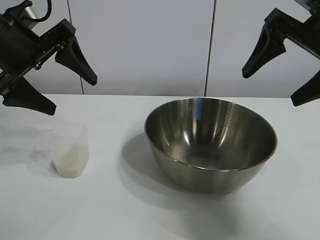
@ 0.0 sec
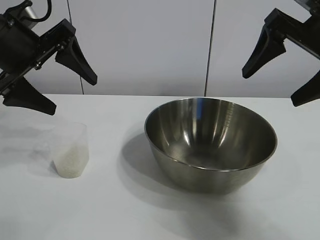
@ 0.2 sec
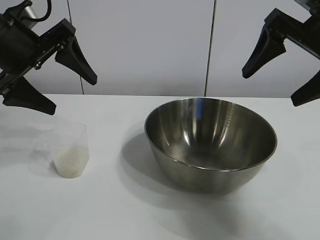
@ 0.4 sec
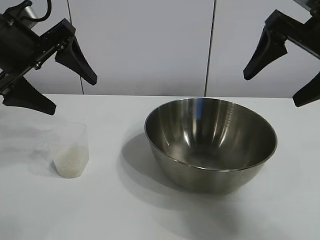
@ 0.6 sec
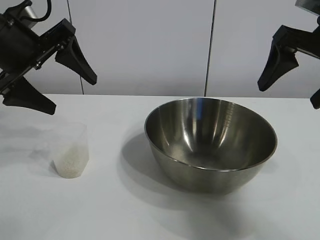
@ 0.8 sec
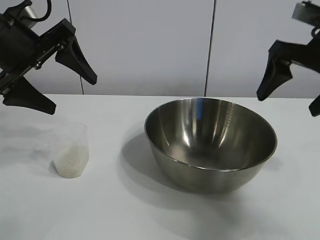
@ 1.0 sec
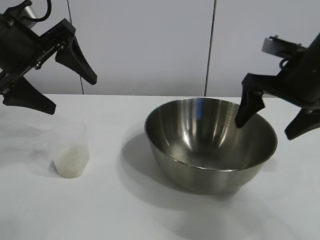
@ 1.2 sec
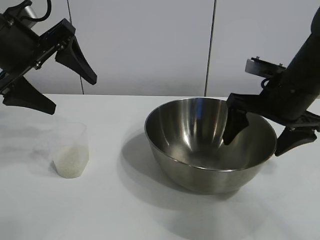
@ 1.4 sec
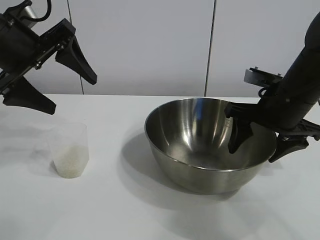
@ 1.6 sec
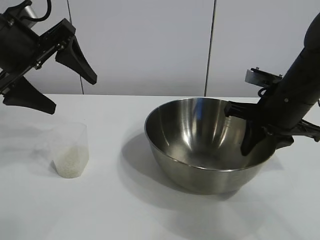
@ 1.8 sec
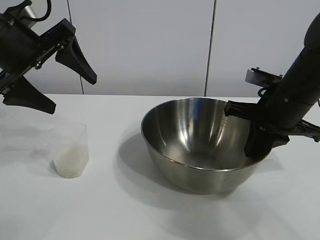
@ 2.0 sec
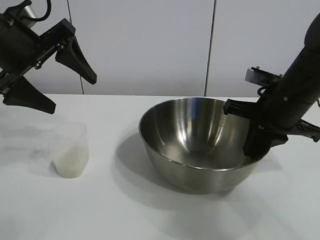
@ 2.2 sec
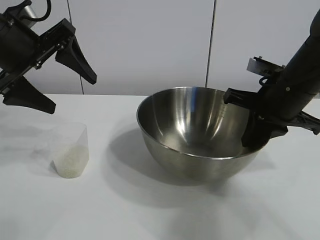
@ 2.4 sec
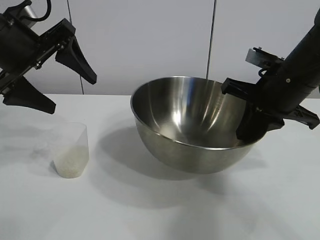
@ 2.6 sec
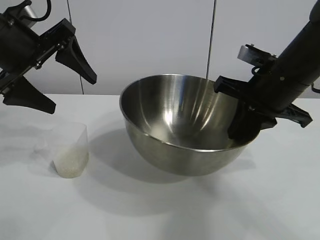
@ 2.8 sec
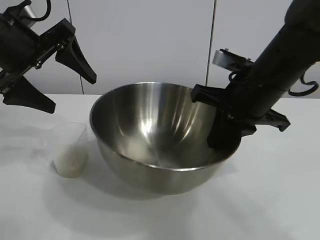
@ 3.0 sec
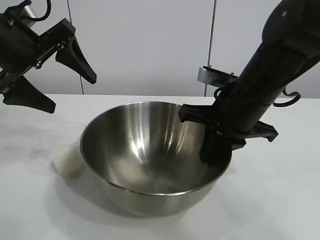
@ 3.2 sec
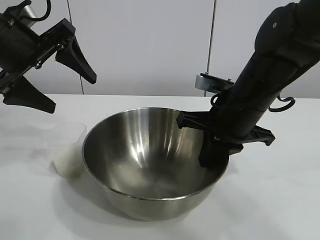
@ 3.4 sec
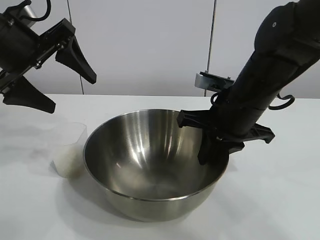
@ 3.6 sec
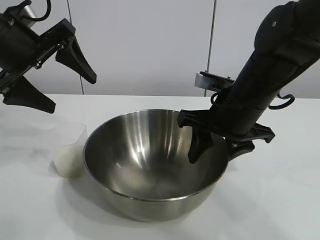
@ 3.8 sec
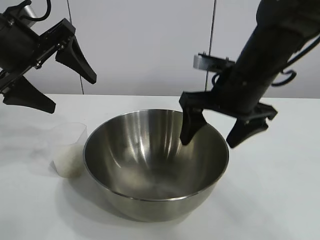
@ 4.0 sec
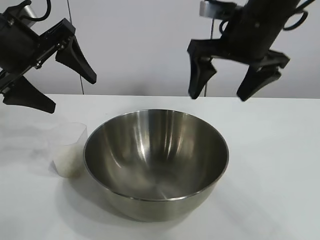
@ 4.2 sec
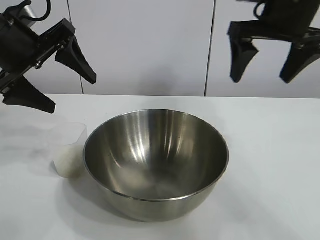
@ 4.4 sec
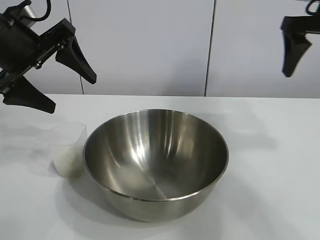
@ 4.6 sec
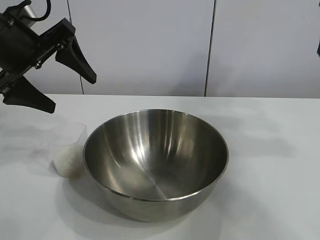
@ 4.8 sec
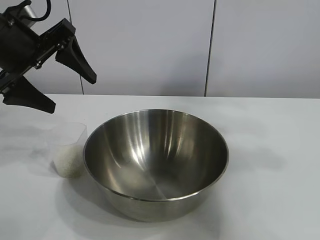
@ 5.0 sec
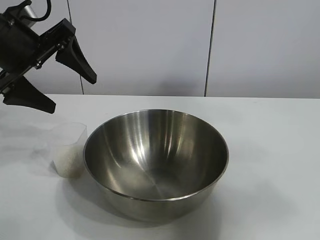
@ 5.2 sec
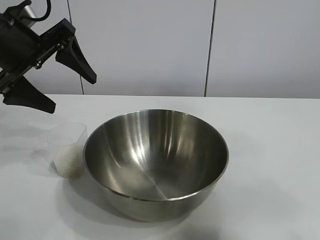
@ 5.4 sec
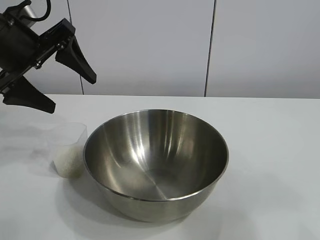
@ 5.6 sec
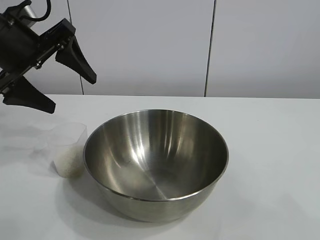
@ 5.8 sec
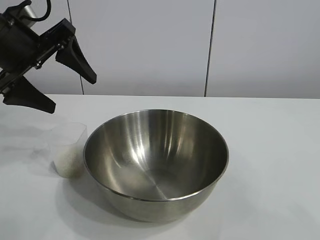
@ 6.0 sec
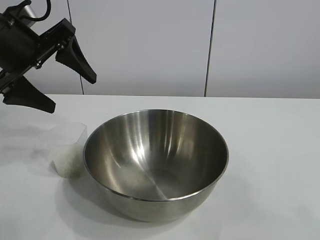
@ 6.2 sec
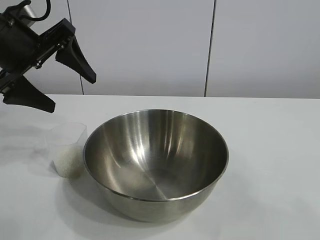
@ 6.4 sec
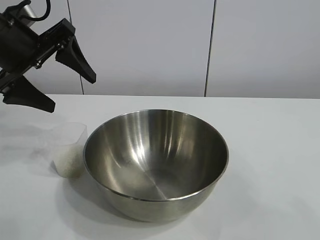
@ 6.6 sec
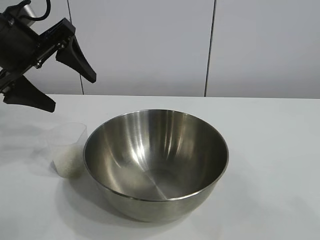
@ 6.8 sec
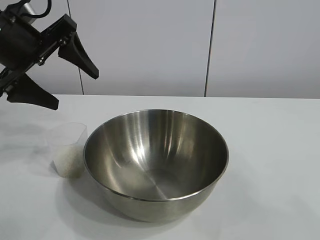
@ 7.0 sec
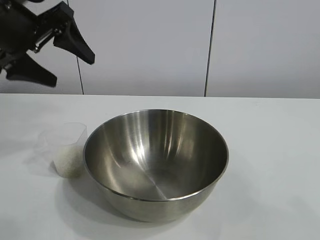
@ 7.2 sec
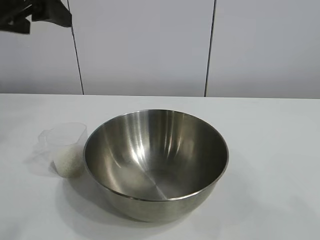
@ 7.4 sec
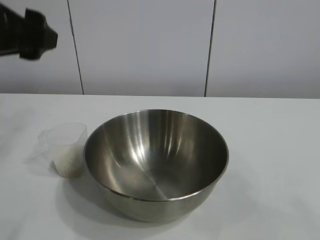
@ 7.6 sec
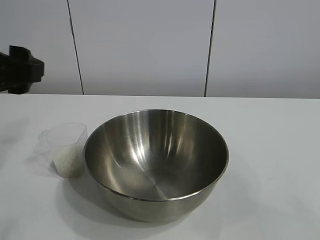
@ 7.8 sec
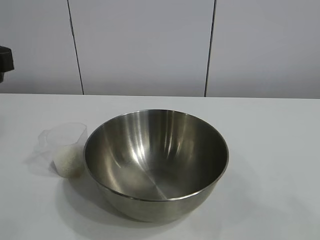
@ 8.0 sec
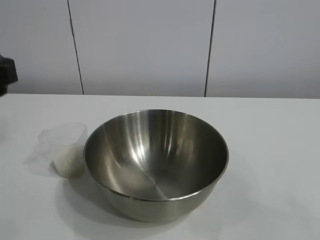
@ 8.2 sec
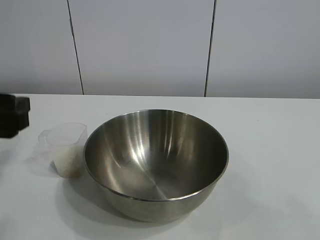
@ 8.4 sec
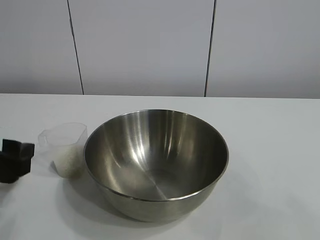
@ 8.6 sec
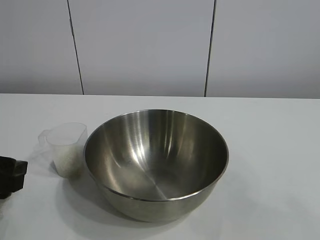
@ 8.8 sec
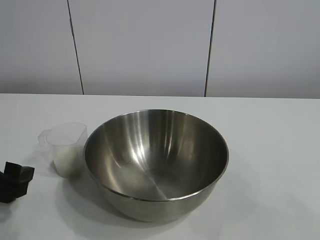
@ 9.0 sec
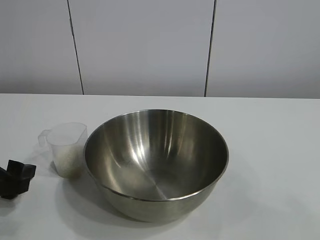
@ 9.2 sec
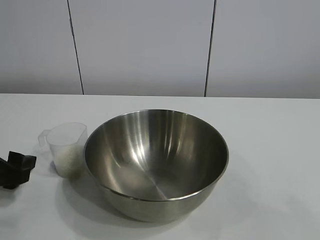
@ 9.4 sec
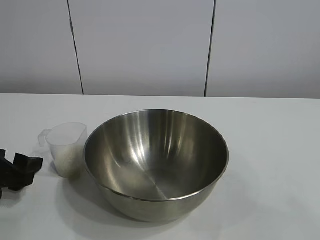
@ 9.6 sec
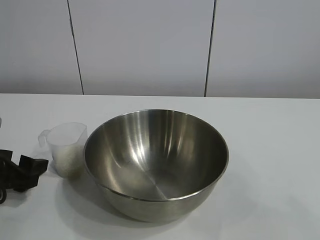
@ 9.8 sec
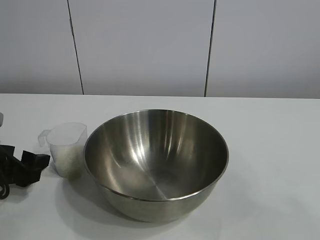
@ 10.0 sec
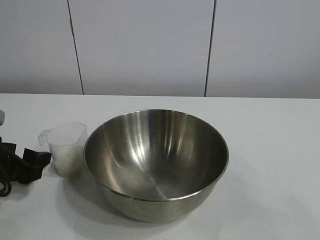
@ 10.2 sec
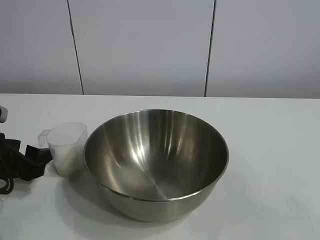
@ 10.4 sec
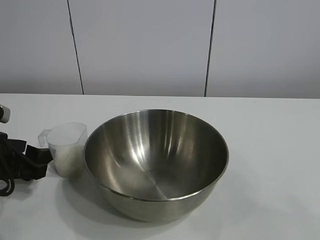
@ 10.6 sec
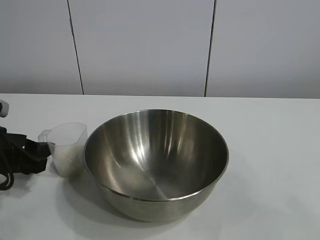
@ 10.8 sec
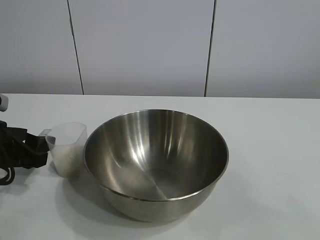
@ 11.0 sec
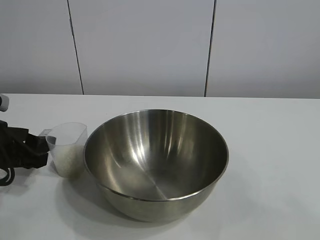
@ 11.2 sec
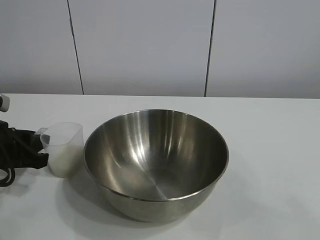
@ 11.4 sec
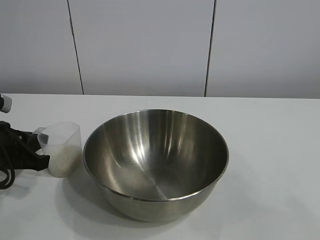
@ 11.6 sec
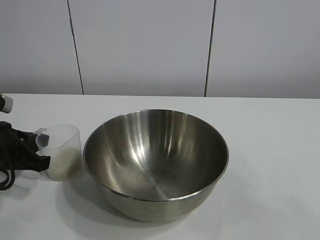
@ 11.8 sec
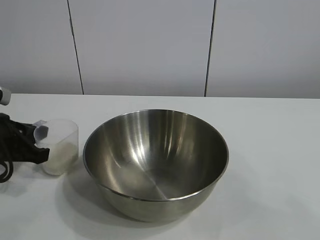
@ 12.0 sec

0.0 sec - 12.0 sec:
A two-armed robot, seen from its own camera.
Task of the whole recording: the right gripper grasp the rice container and place it in the center of the table, the left gripper grasp the rice scoop and pour the rice into the rice container.
Step, 0.6 sec - 3.6 sec: Move the bowl in the center of view with right gripper.
Step, 4.0 sec - 11.6 sec: Grasp the cup with rice in it with left gripper.

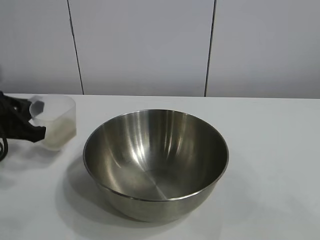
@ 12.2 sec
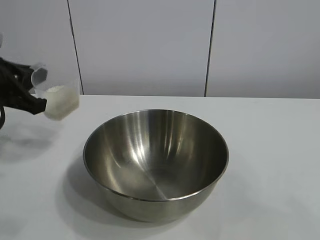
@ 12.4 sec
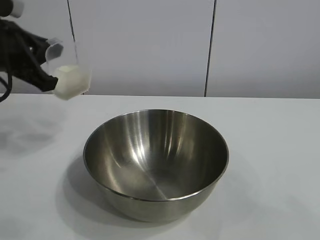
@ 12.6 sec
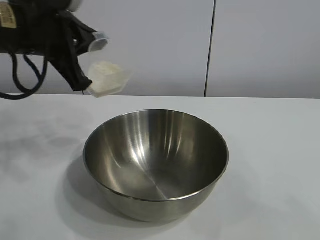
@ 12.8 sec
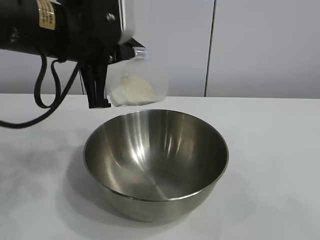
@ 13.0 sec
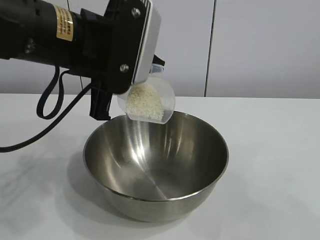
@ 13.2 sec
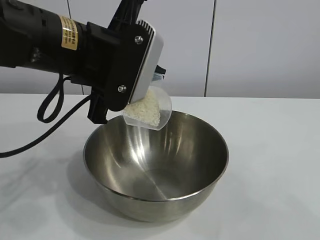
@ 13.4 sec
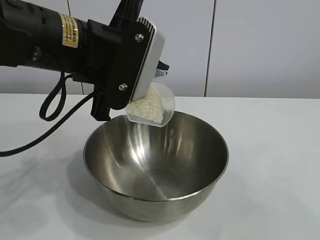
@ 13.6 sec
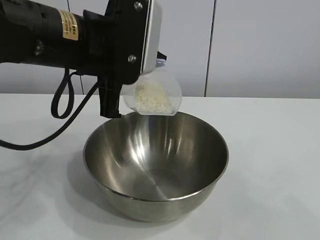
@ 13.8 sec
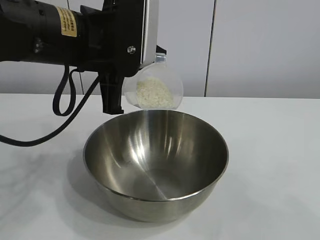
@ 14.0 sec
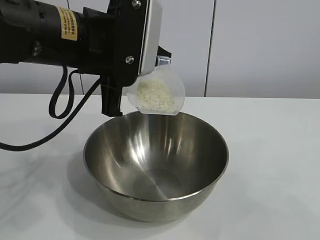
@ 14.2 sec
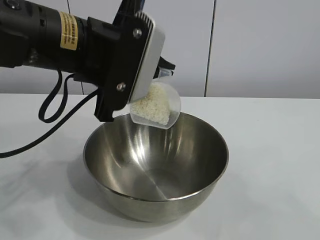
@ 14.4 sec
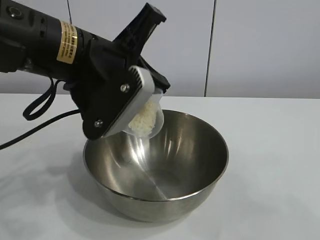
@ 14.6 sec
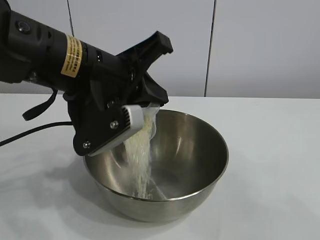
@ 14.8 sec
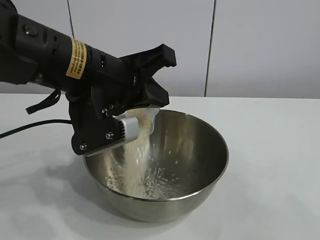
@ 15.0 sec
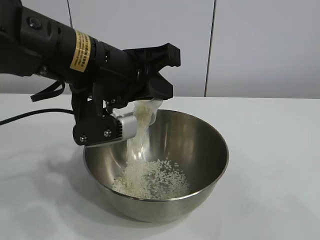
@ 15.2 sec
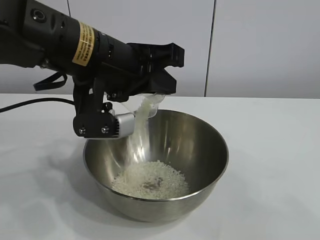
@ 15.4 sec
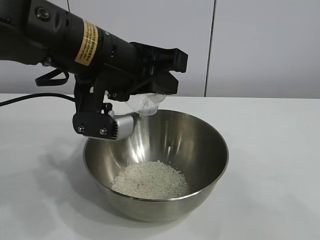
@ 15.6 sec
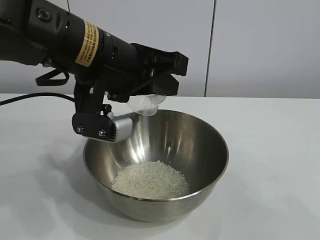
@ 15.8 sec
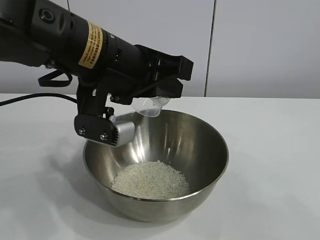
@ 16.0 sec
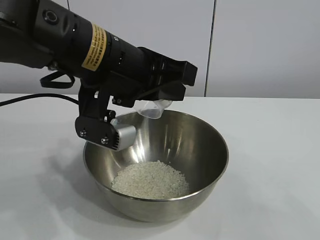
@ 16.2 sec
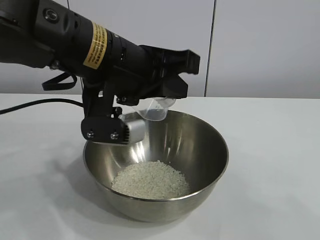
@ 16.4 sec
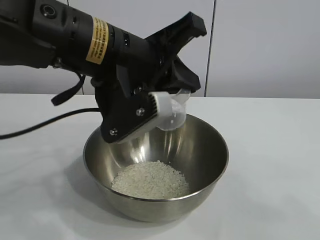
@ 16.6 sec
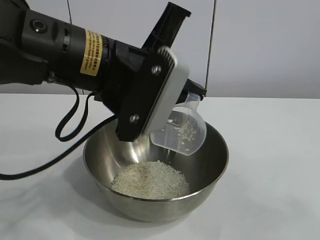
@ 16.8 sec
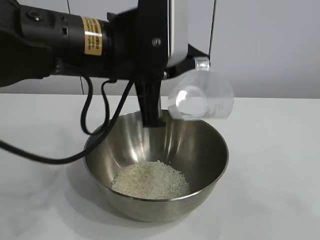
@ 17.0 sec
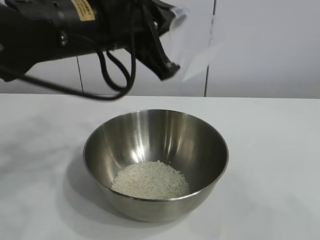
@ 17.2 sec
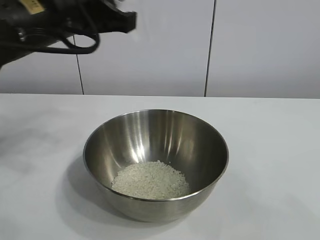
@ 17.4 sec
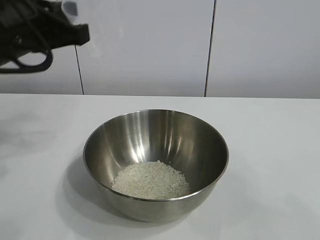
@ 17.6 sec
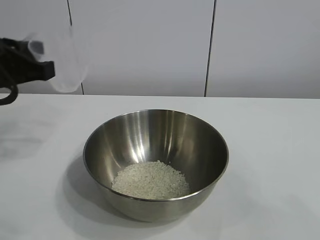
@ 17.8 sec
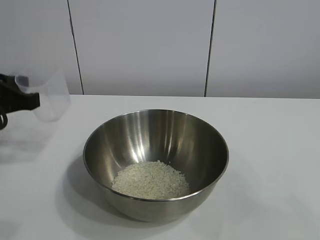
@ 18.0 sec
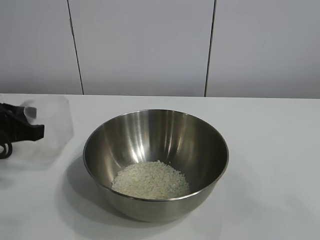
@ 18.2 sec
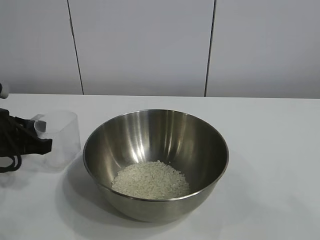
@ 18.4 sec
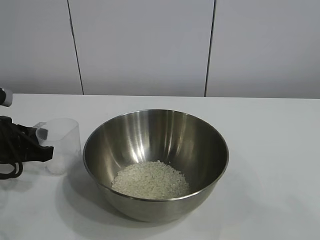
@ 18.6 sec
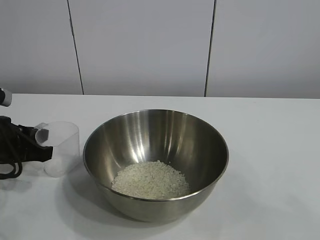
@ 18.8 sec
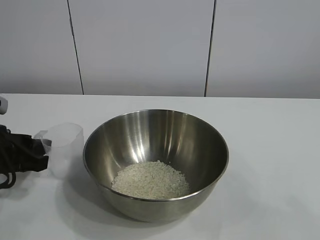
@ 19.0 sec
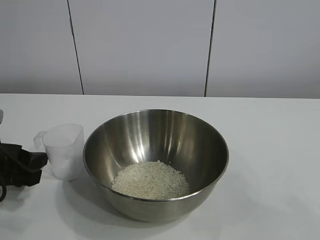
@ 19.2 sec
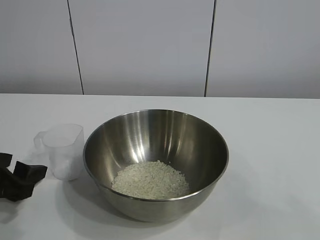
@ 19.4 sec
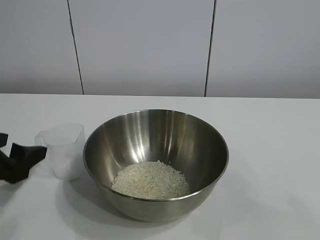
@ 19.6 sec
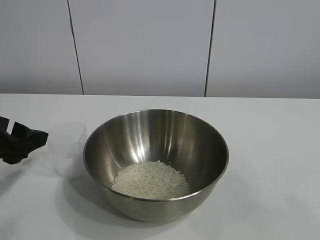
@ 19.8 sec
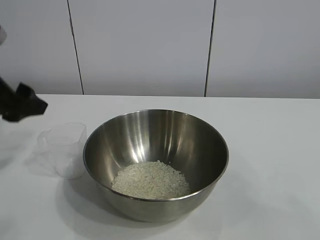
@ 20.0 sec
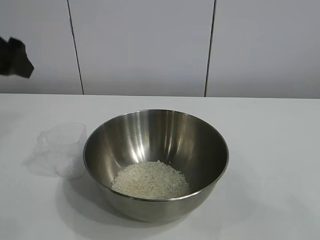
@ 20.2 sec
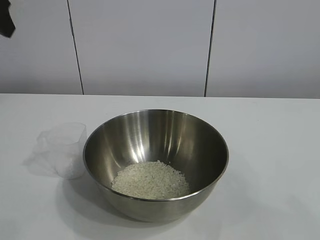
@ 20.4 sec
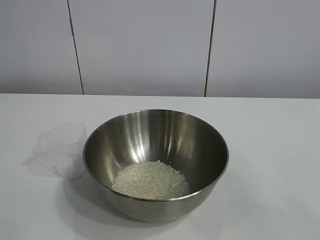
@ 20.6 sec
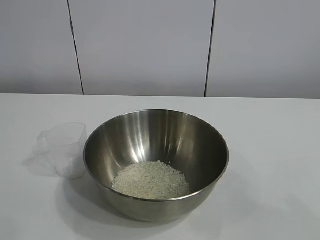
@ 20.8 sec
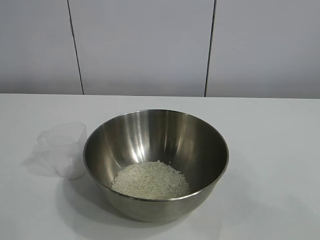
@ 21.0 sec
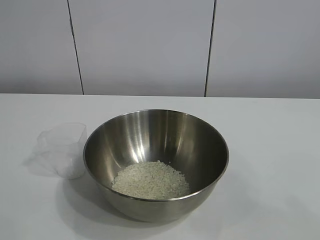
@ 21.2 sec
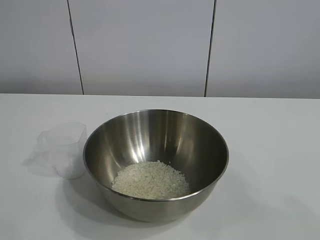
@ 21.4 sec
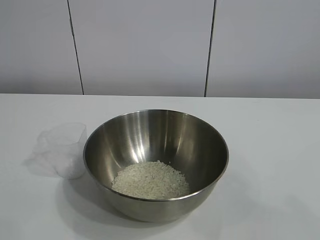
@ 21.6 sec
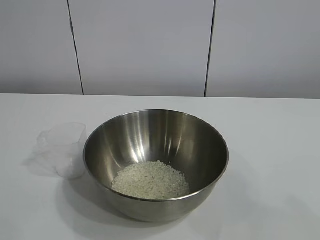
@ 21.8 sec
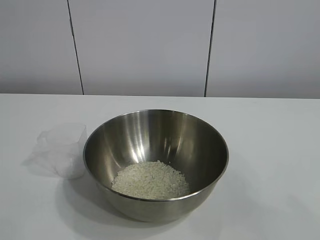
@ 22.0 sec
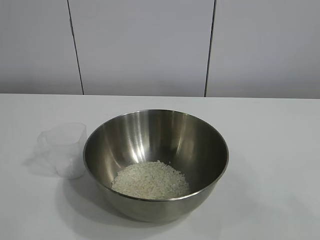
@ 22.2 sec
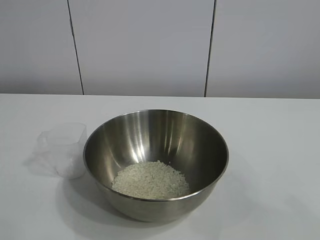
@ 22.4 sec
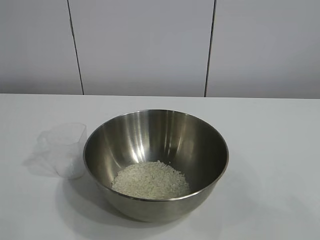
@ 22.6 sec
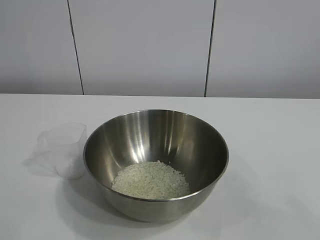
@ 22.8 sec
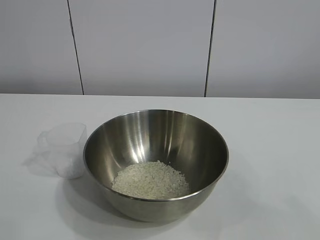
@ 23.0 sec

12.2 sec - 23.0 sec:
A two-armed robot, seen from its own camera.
Task of the whole recording: the right gripper grasp the rice container and place it in the center of the table, the left gripper grasp the rice scoop and pour the rice into the rice container.
Step, 12.2 sec - 16.0 sec: Pour the rice from the cup into the bowl with the left gripper.
Step, 16.2 sec - 19.0 sec: Place the cup on the table with the left gripper.
